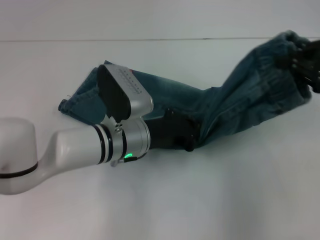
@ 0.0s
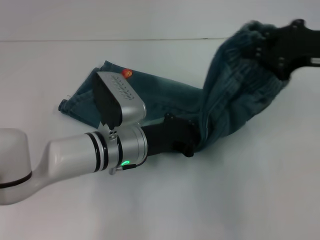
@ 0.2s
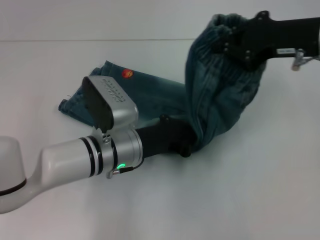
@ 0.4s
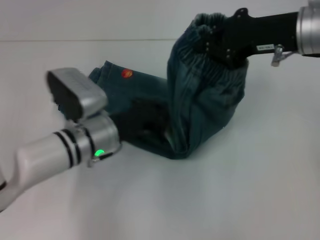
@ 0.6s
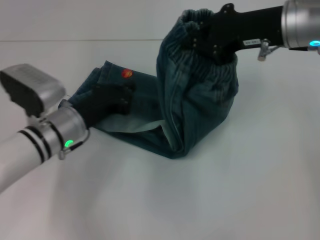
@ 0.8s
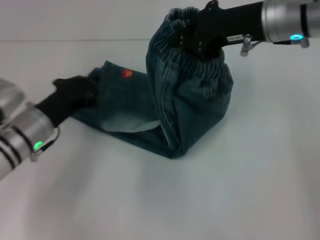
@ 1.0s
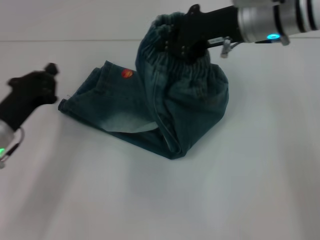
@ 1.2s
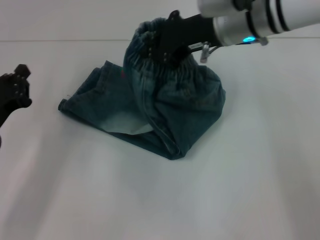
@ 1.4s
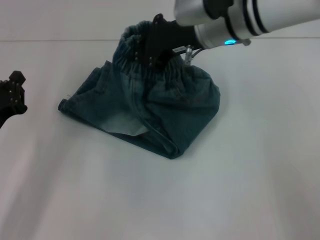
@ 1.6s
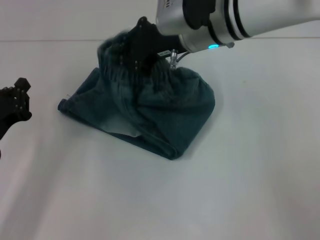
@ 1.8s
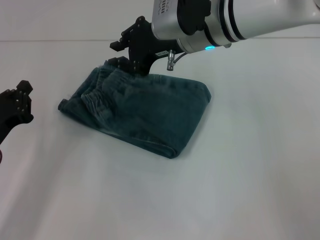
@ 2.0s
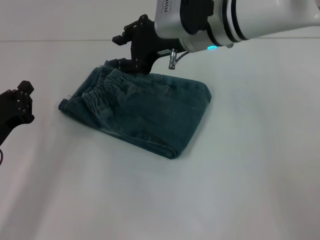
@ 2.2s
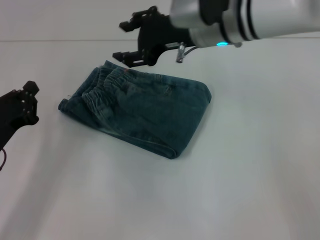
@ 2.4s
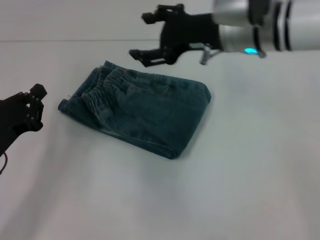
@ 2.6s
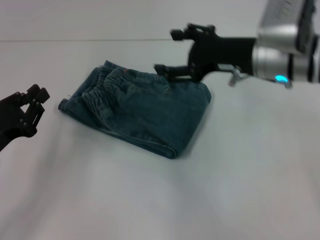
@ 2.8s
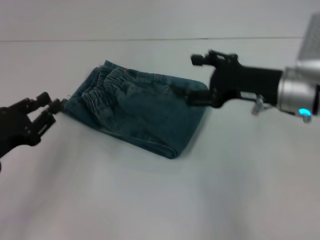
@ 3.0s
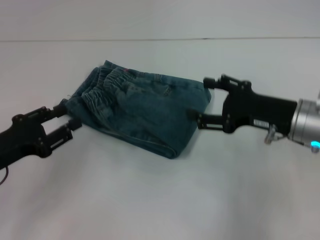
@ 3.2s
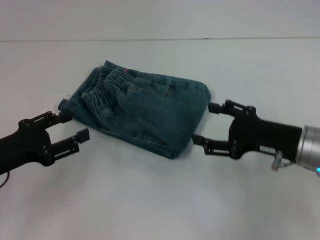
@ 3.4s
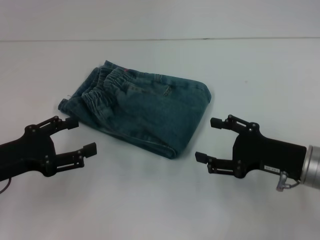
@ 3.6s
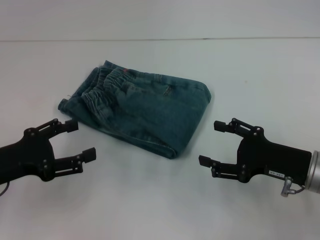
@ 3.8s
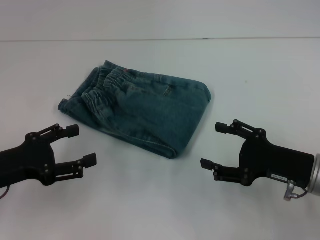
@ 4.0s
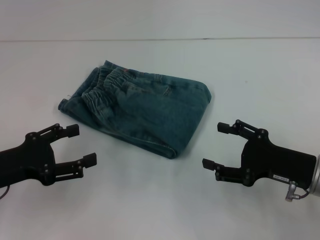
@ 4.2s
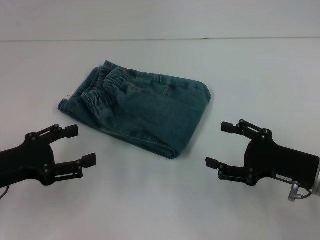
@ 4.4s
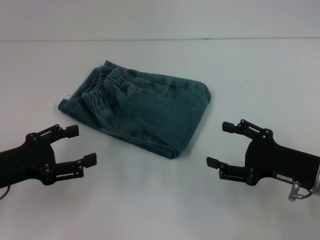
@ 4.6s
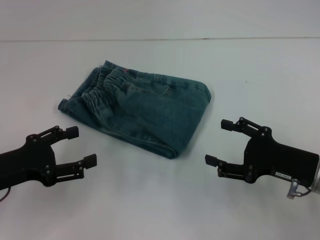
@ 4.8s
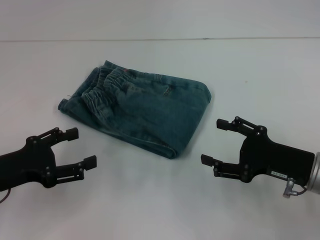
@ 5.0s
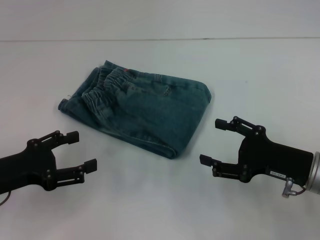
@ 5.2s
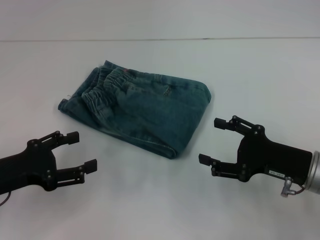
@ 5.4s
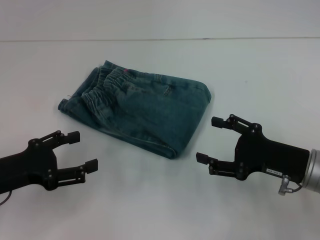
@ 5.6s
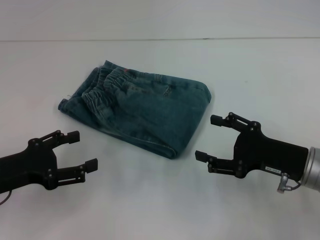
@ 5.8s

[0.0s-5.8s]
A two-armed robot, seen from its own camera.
Step, 0.4s to 1.8s: Fold to the left with your right hand.
0.0s to 1.4s: The left gripper travels to the left by approximately 20 cm. The right gripper goes some 25 cm to the left and forward.
1.4s to 2.8s: The right gripper goes approximately 5 cm to the right, and opens its fingers.
2.8s to 4.4s: The left gripper opens its fingers. Meanwhile the right gripper goes some 20 cm backward, downward and to the right.
4.4s to 5.8s: The grippers move only a little.

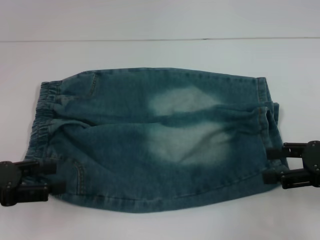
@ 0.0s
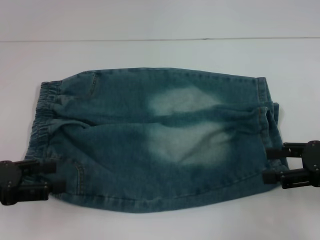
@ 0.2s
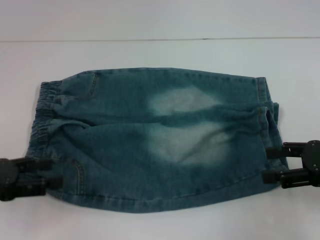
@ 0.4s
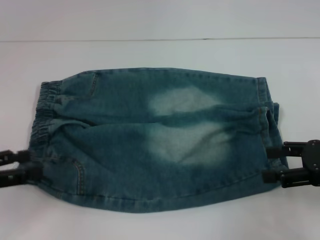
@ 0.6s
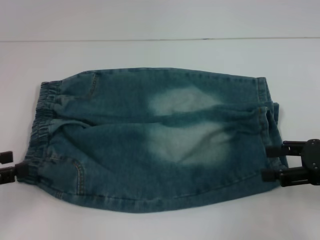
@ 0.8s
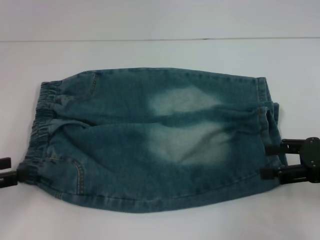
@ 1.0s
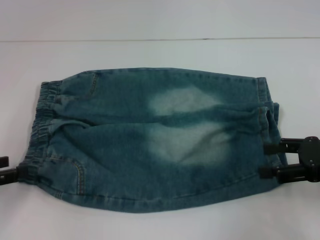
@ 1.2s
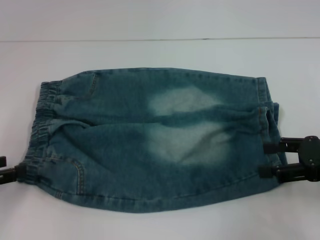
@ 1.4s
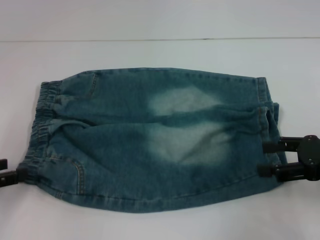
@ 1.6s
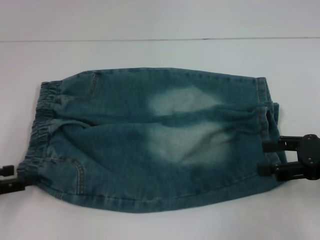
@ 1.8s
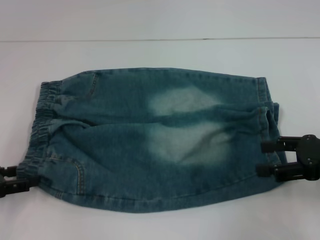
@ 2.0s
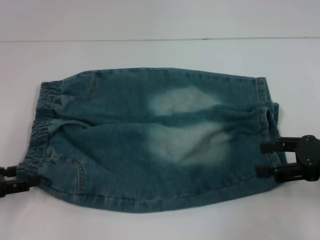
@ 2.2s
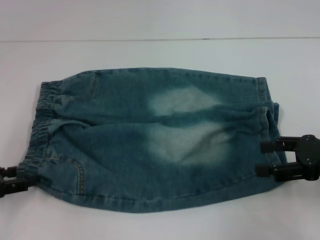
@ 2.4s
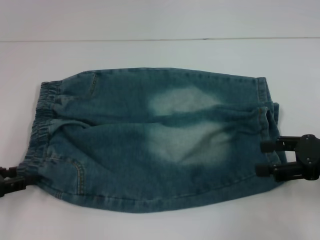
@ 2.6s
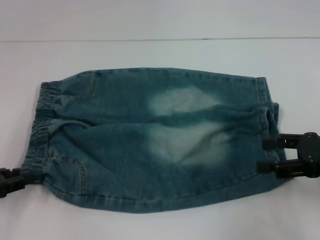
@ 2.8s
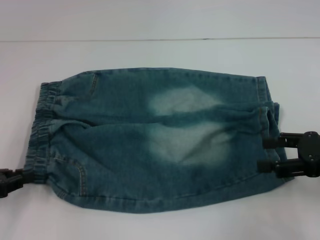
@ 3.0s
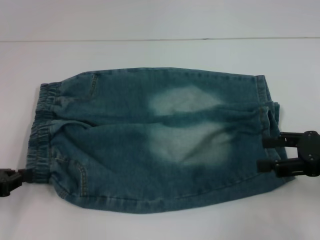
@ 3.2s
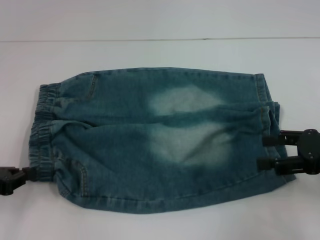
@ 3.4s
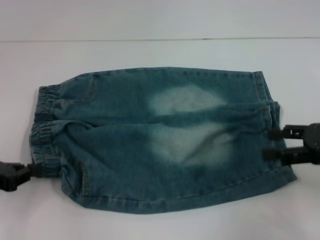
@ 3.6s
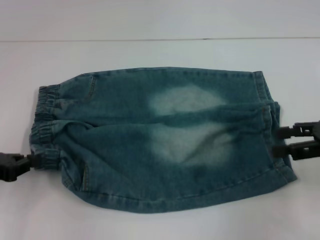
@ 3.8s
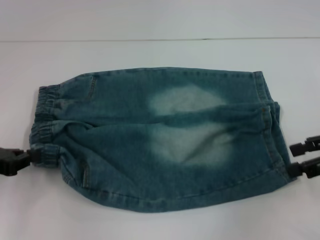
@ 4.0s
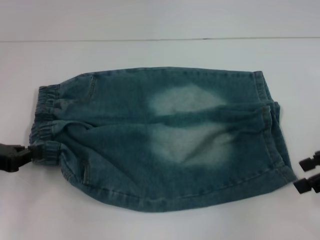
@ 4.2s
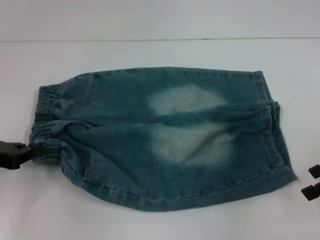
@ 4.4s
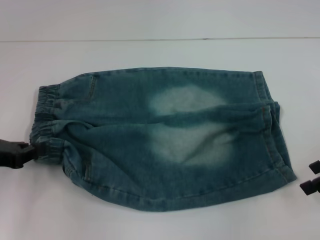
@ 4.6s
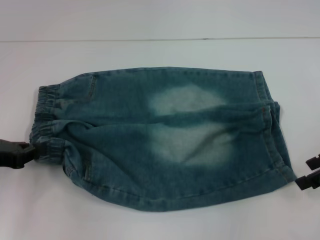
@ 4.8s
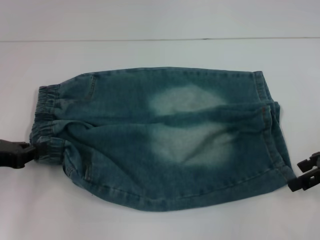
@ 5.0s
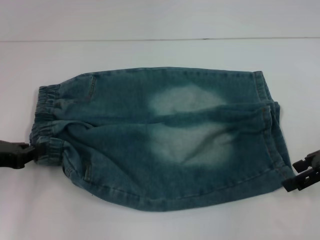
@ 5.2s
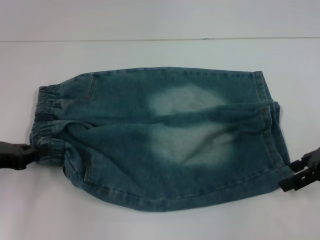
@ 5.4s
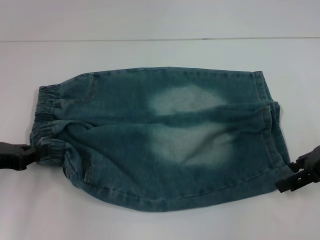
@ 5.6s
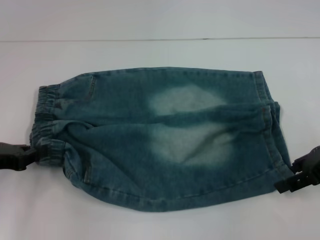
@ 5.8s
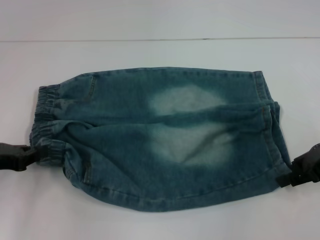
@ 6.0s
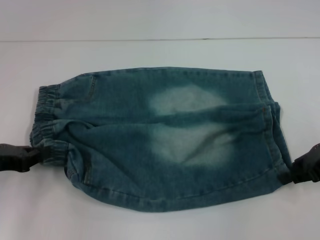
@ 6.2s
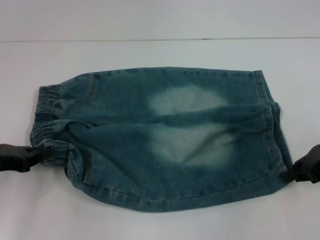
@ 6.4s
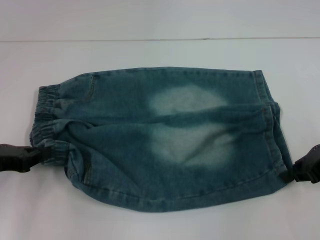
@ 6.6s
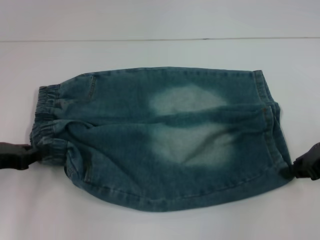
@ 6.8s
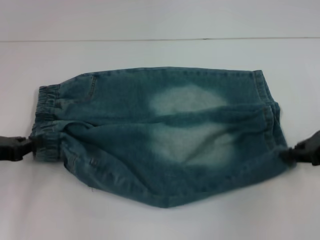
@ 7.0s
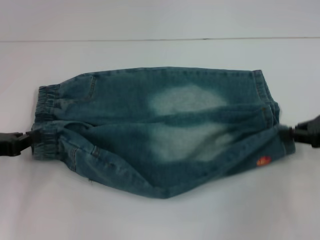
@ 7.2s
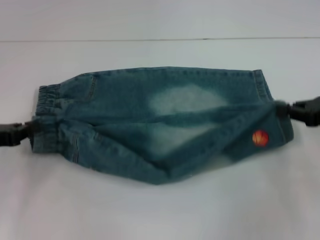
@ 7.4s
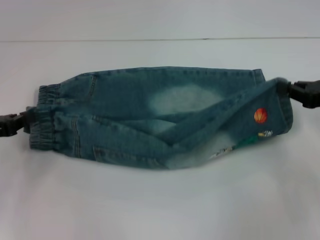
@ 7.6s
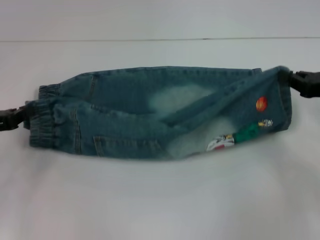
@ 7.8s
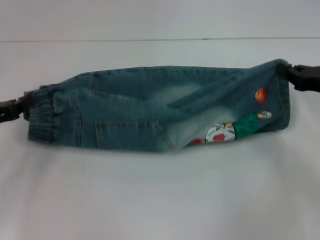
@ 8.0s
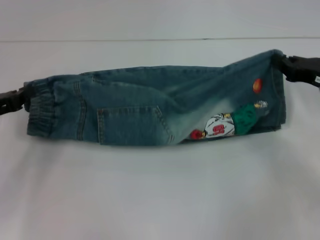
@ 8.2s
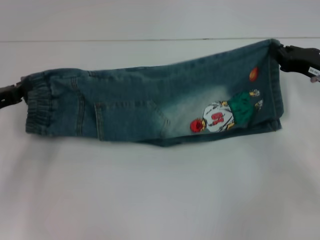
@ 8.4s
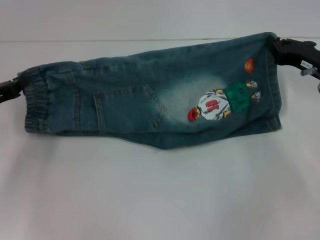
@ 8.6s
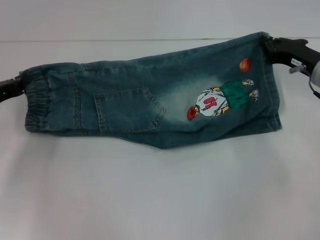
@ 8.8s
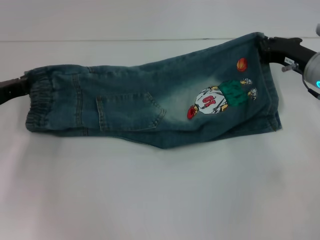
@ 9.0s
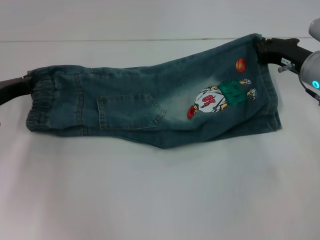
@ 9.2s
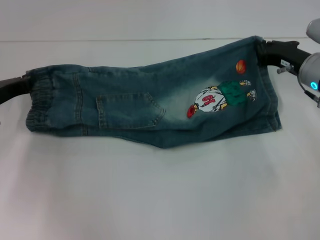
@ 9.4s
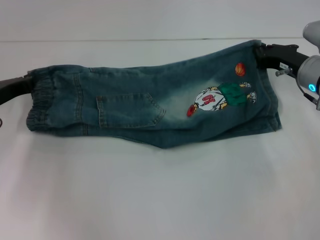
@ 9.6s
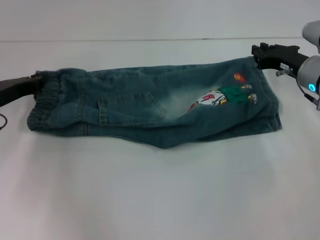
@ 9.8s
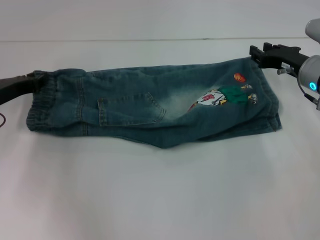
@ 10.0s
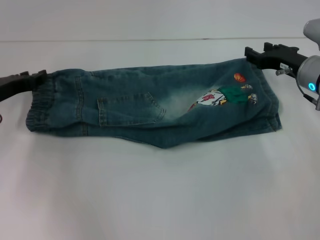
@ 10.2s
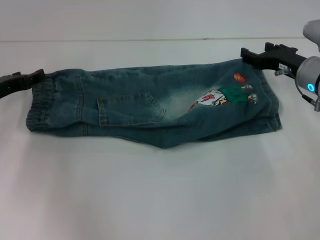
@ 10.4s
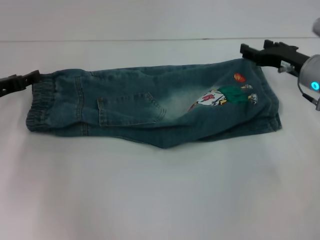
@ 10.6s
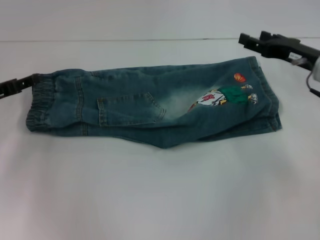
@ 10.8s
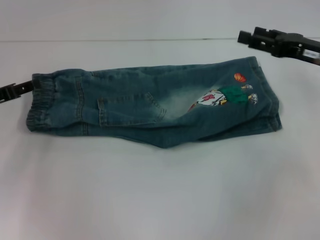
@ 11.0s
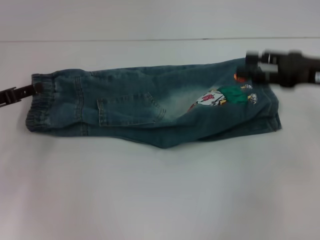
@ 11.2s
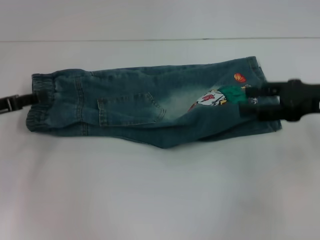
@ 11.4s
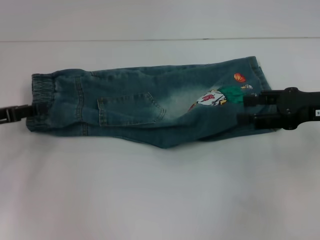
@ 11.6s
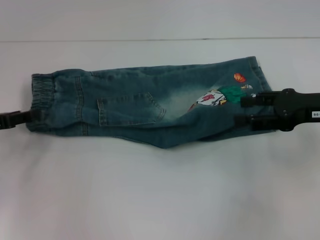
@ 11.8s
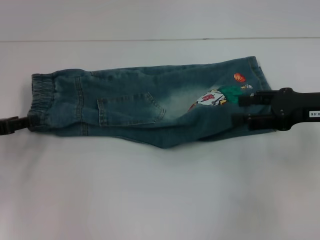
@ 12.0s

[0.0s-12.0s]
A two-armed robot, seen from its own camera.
Step, 0.0s to 3.2s: Hold the lower left waistband with your left hand.
Step, 3.4s to 6.6s: Grab the lower right pant leg with your right hand.
Step, 7.0s to 9.6s: Fold upward with your right hand.
Step, 9.8s to 10.0s: Fold upward with your left hand.
0.0s to 1.6s: The left gripper ends up approximately 5 cm from where it was.
1.6s to 3.0s: The left gripper closes up.
3.0s to 4.4s: The right gripper changes place by about 5 cm.
4.4s to 6.0s: The right gripper closes.
6.0s to 7.6s: The right gripper closes its fingers.
7.6s to 9.0s: The right gripper is displaced forward and to the left by roughly 10 cm, while the left gripper heads forward, covering some 5 cm.
9.0s to 10.4s: The left gripper opens its fingers. Meanwhile the right gripper opens.
10.4s to 12.0s: The right gripper travels backward and upward by some 10 cm. Meanwhile the left gripper goes some 5 cm backward.

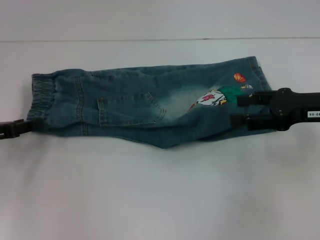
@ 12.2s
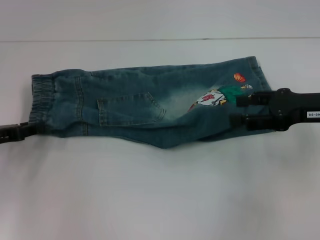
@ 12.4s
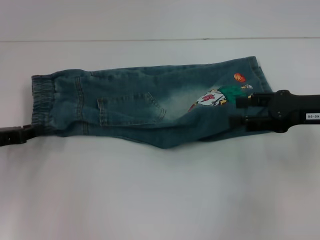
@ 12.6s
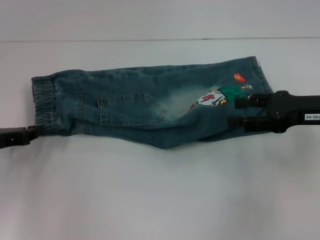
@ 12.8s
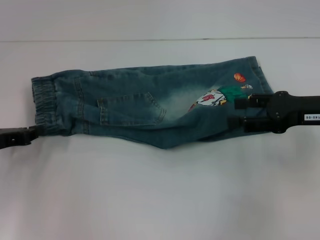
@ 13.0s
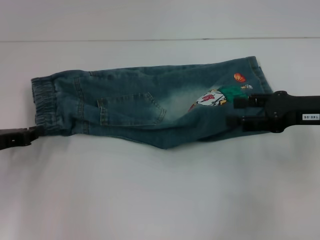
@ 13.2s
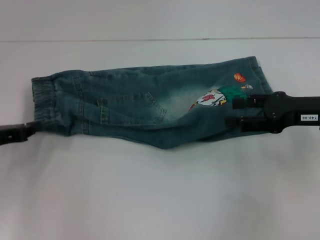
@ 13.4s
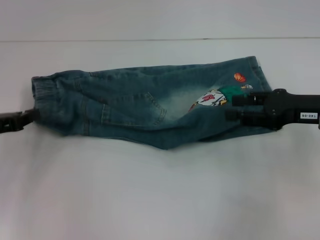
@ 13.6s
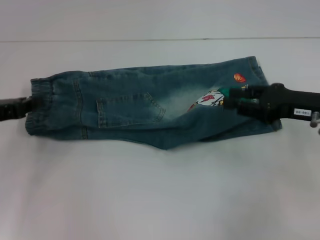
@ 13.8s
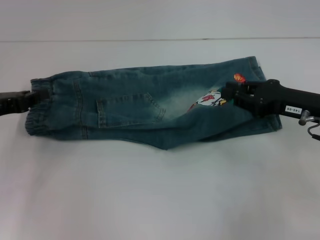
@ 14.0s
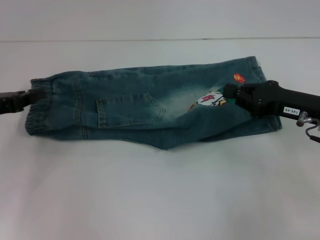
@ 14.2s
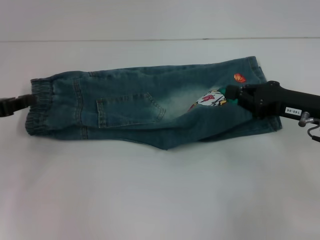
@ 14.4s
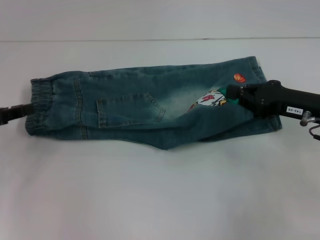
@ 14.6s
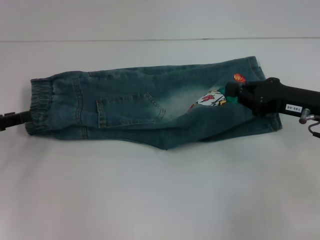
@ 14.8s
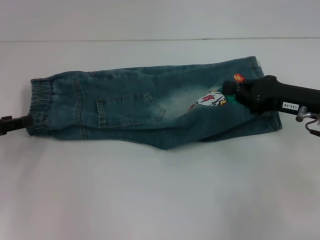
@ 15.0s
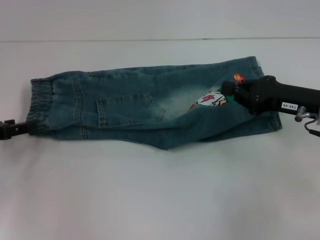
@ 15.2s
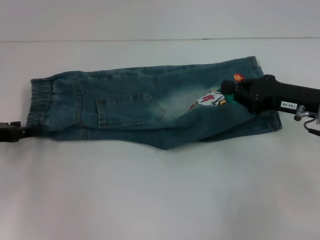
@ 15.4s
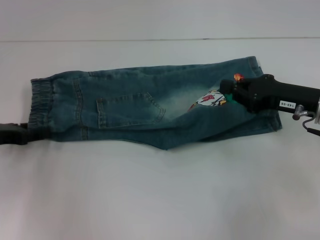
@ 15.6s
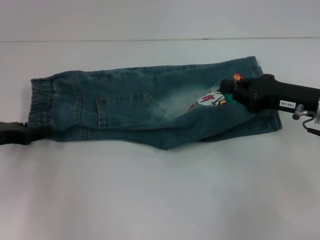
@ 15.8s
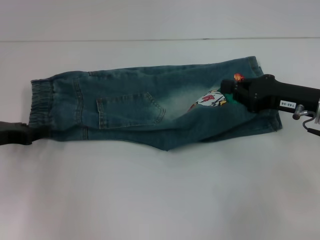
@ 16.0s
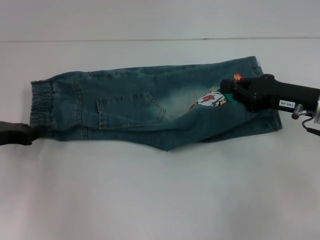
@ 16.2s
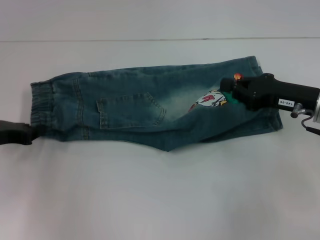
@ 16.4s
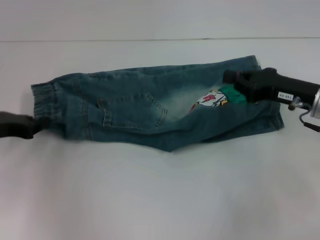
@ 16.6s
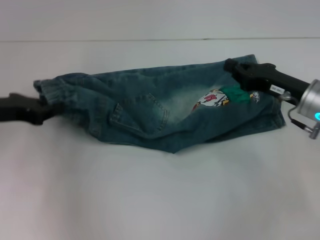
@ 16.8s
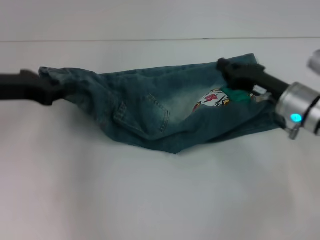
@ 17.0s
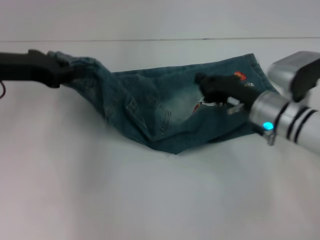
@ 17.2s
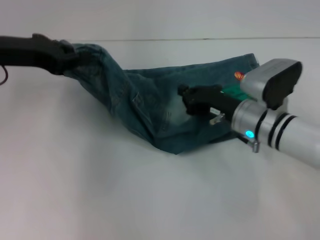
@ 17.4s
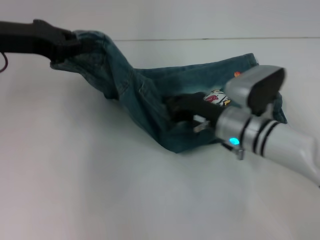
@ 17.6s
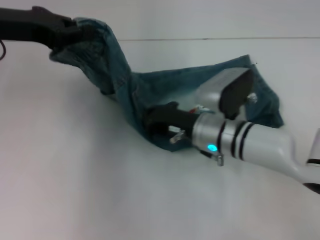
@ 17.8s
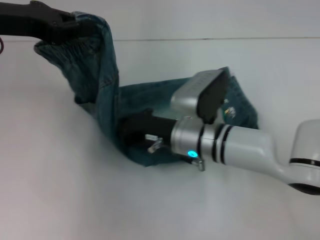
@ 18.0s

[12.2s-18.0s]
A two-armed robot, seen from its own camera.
Step, 12.2s to 16.4s: Hold the waistband with your left hand.
12.2s to 13.6s: The left gripper closes.
13.6s to 15.0s: The left gripper opens up. Meanwhile the right gripper closes.
15.0s to 16.6s: The left gripper closes.
16.6s to 18.0s: The left gripper shifts approximately 15 cm upward; the right gripper goes roughly 20 cm to the left.
